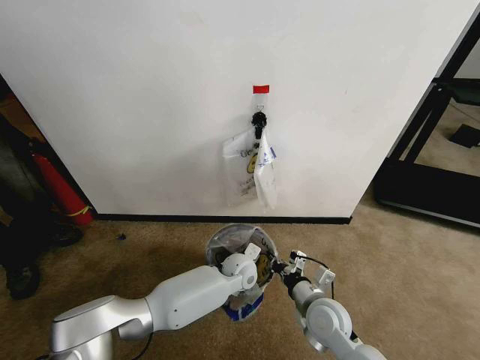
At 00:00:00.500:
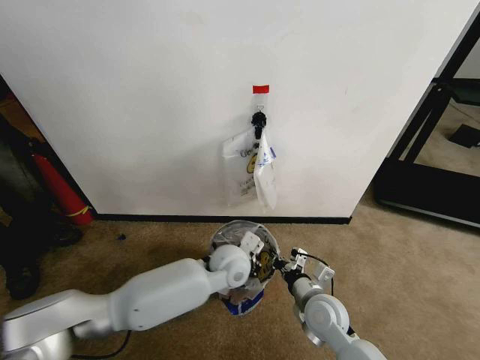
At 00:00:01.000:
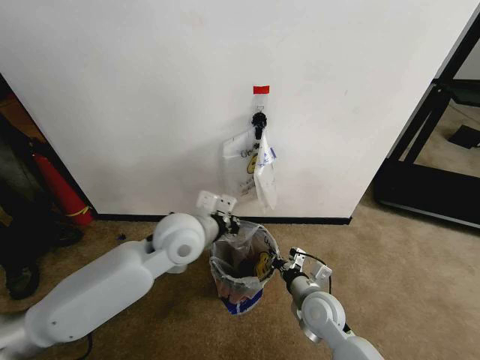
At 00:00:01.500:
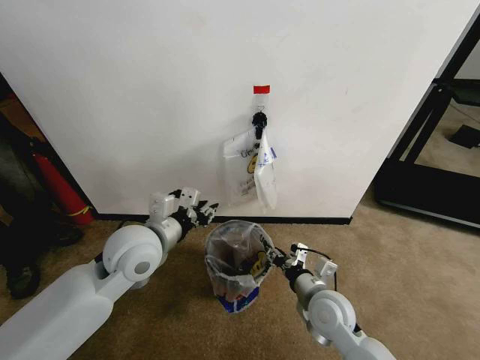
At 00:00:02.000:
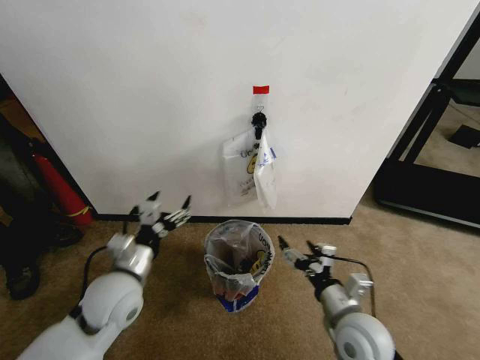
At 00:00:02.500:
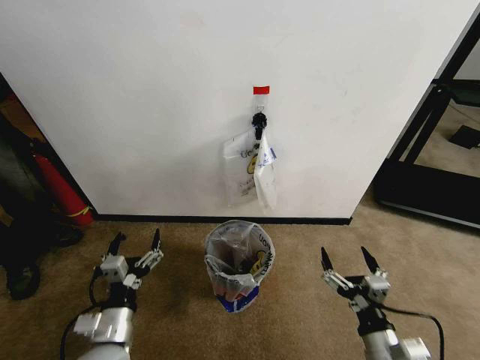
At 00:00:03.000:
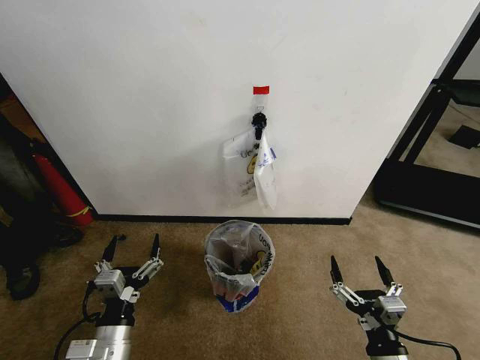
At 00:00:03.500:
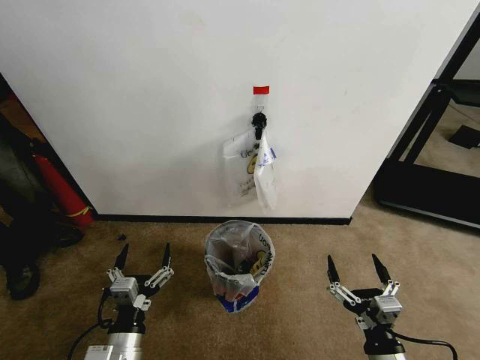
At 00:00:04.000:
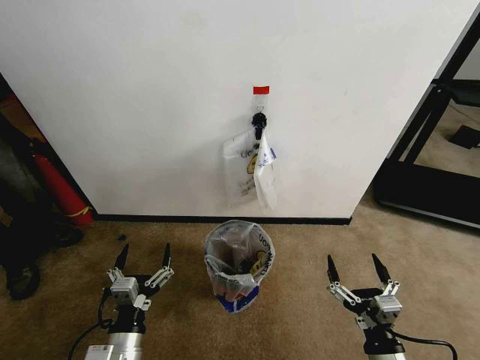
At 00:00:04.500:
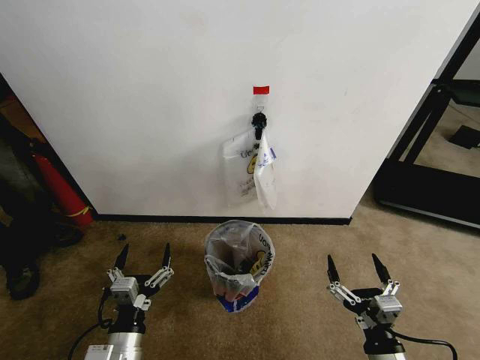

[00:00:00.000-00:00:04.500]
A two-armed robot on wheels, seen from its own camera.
Task of the whole recording: Pick up the garbage bag from the wall and place it over the trash bin.
00:00:00.000 to 00:00:02.000: The right gripper travels upward and backward by approximately 10 cm, and opens. The left gripper moves to the left, upward and backward, approximately 30 cm, and opens its fingers.
00:00:02.000 to 00:00:04.500: The right gripper travels backward by approximately 10 cm. Meanwhile the left gripper travels backward and downward by roughly 15 cm.
